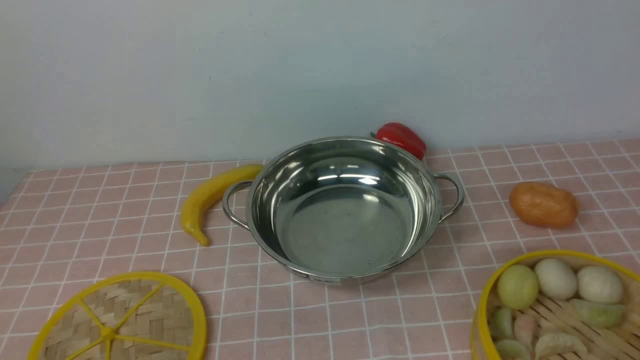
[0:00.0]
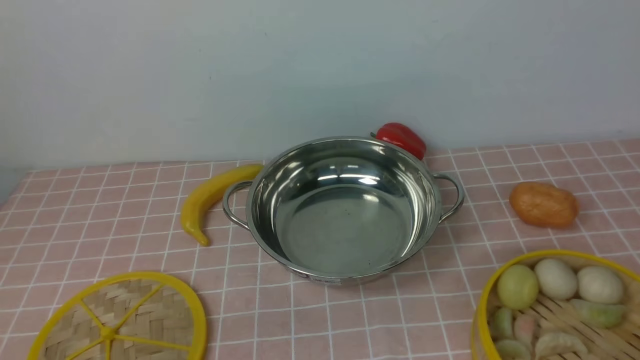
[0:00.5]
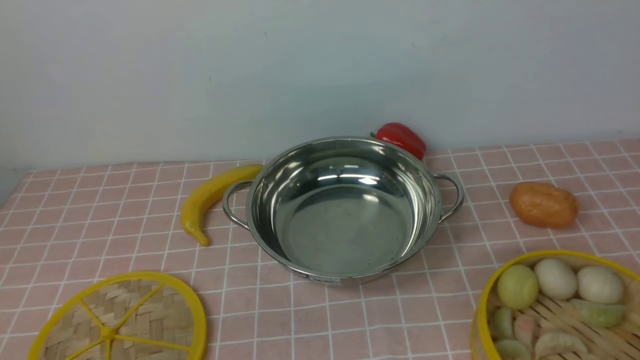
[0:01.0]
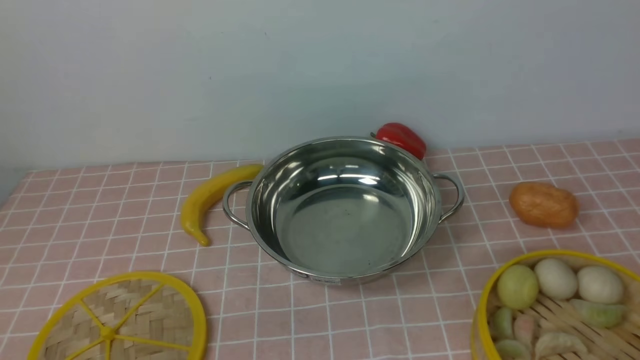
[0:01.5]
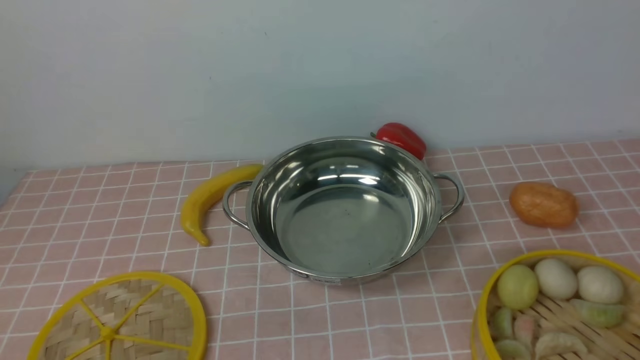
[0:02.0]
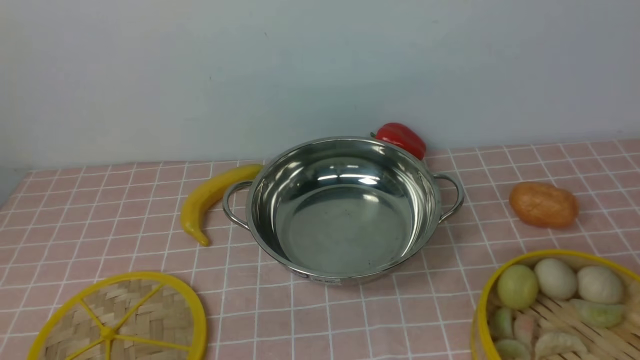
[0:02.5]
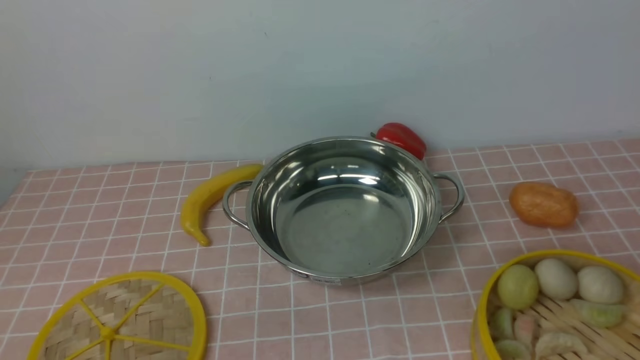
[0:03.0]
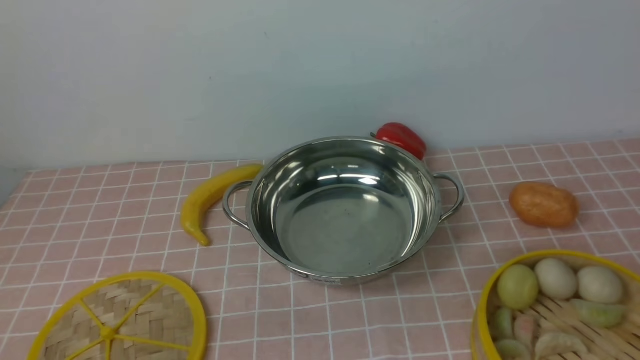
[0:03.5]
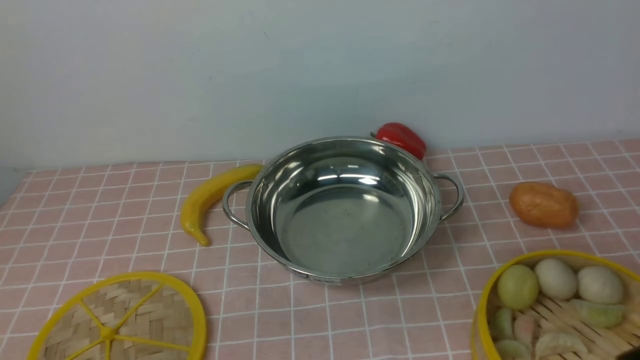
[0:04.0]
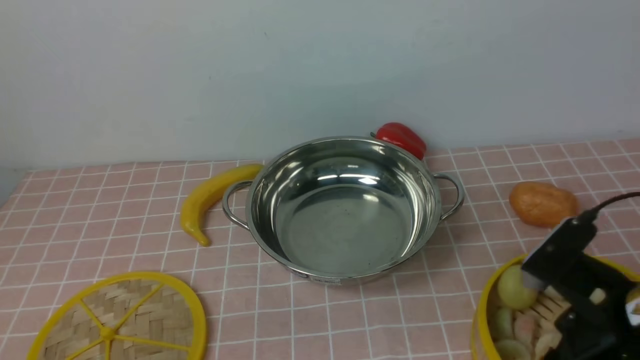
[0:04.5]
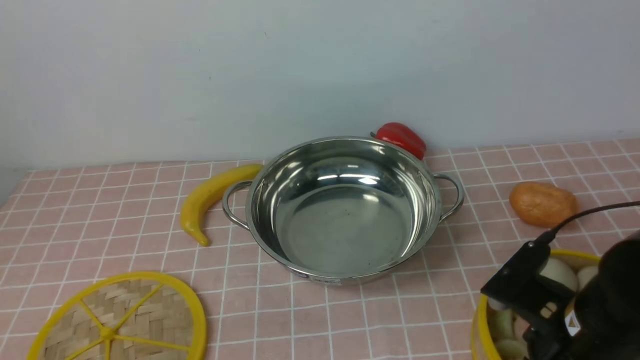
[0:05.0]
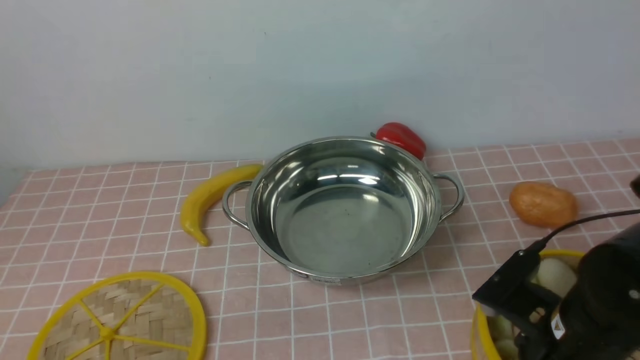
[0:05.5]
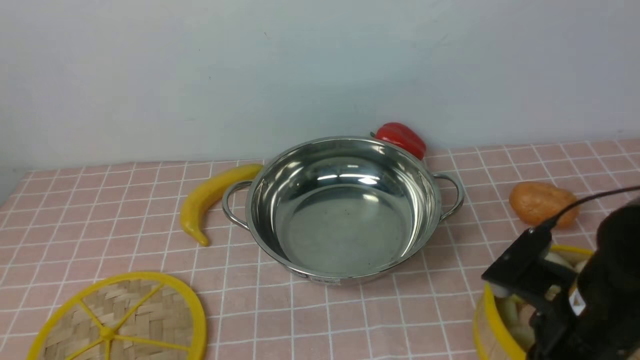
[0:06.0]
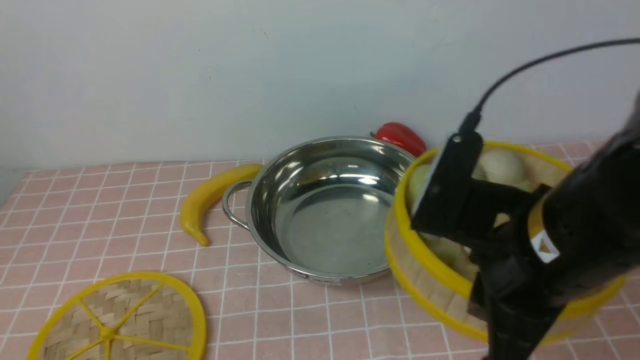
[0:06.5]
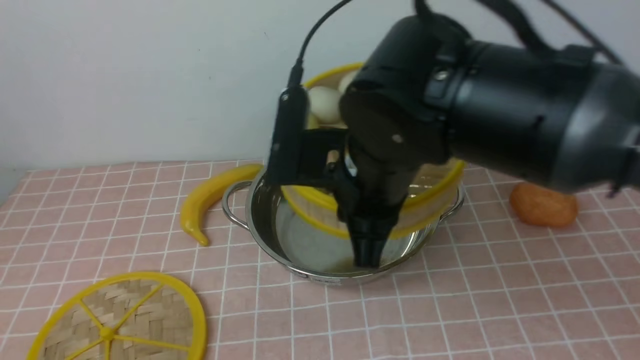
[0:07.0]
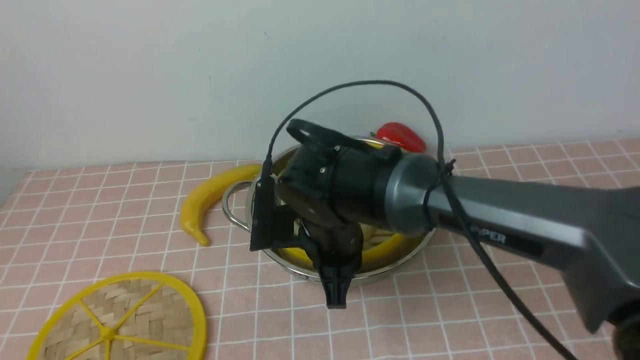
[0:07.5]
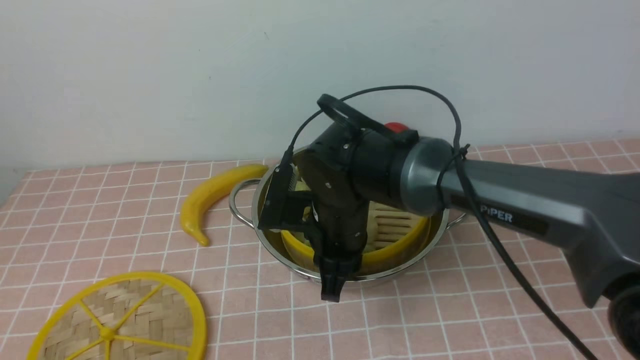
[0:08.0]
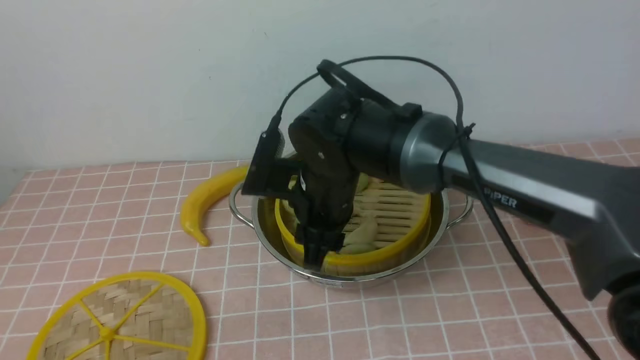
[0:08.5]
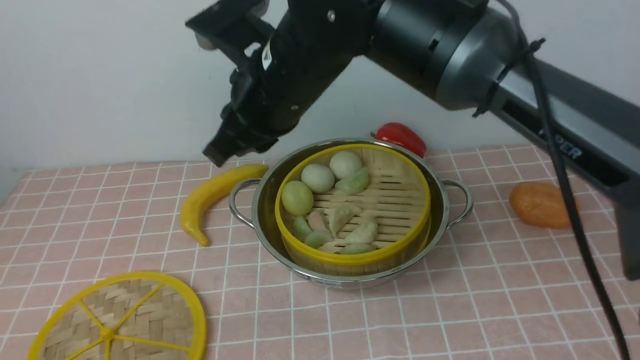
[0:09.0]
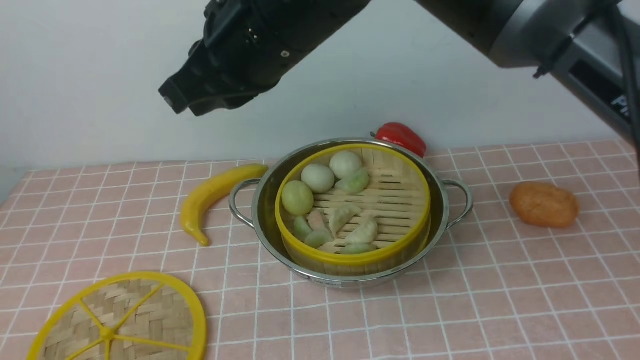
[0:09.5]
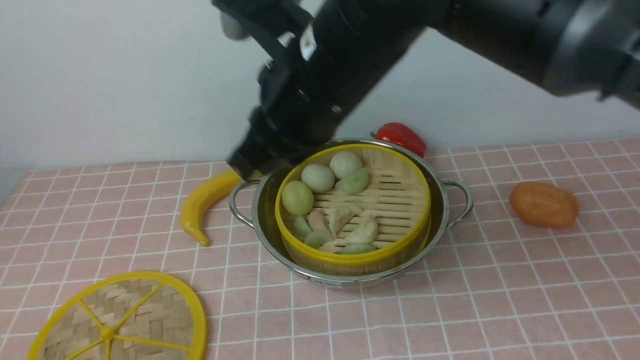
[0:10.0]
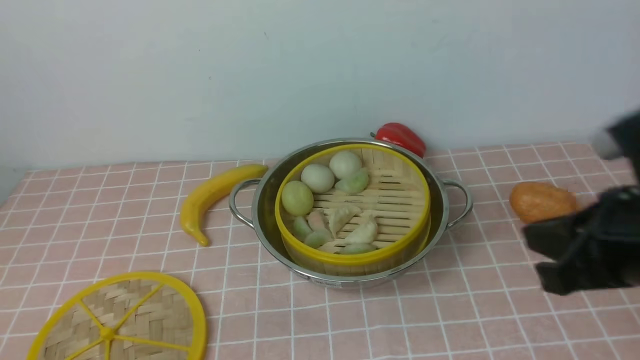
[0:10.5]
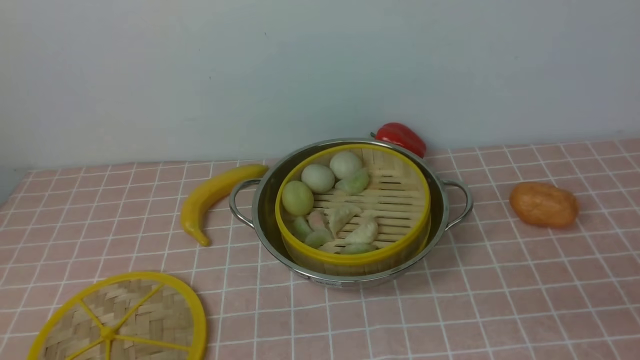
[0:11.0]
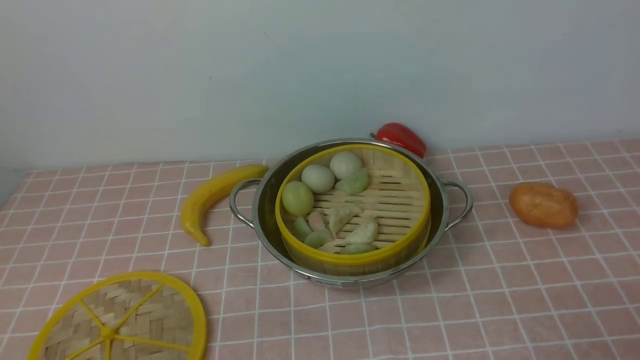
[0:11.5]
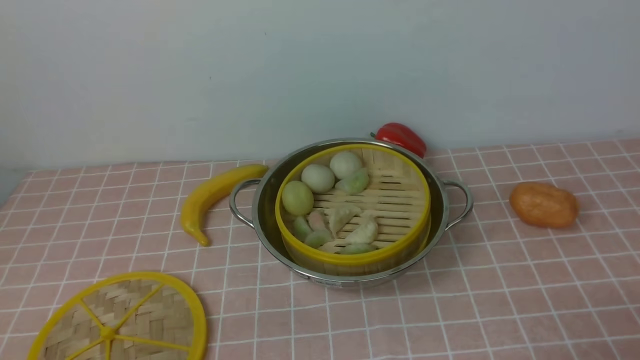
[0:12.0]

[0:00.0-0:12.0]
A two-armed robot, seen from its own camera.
Task of the whole recording: place the steamer in the pot on the pink tablecloth, and put the lid on the steamer.
Step, 0:00.0 to 0:06.0: use the right arm to lift the steamer closest to it.
Step, 0:06.5 to 0:08.5: use the right arm to put the steamer into the iron steamer pot in the middle.
0:00.0 to 0:02.0: Both grippers stay put.
0:04.0 to 0:06.0: The right gripper moves forward, downward and to the left, about 15 cm, and closes its fingers.
0:06.0 to 0:08.0: The right gripper is displaced to the left and forward by about 25 cm, and opens its fingers.
0:08.0 to 0:10.0: The right gripper heads upward, covering some 20 cm, and closes its fingers.
0:10.0 to 0:12.0: The right gripper shifts some 40 cm to the right, backward and downward, and opens its fingers.

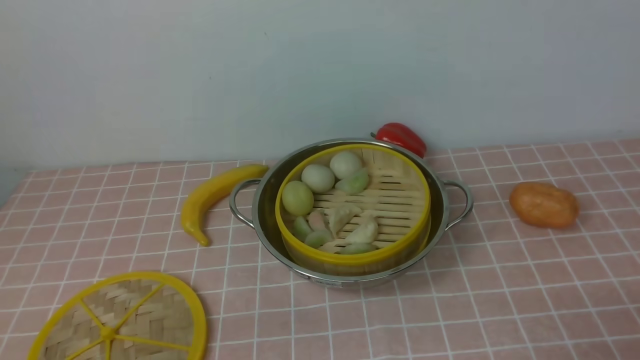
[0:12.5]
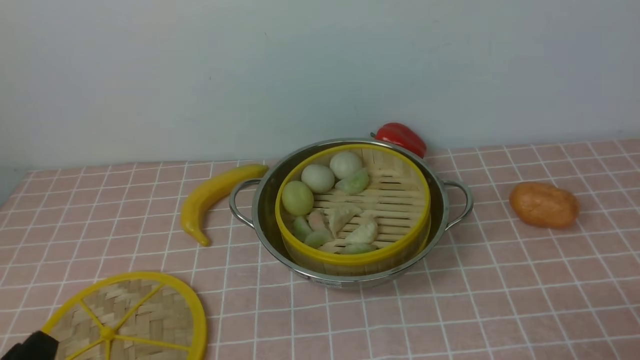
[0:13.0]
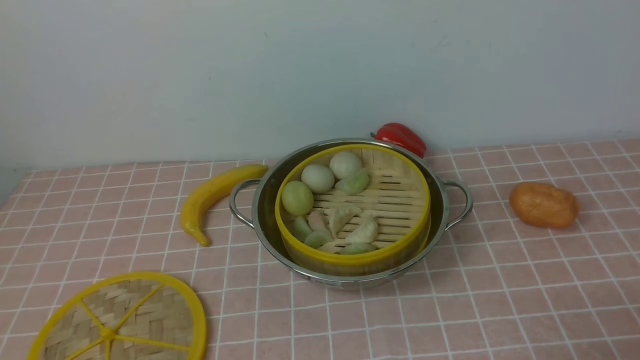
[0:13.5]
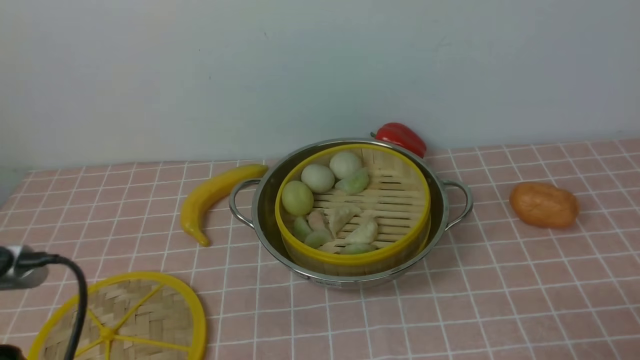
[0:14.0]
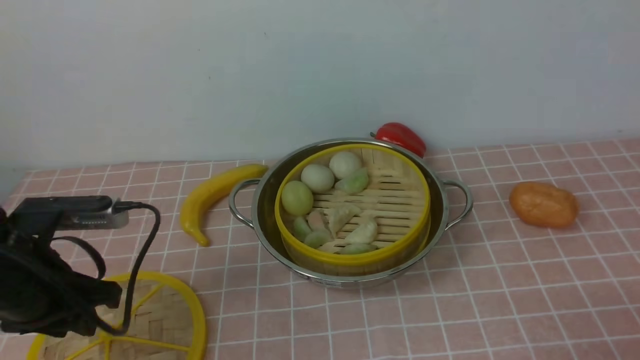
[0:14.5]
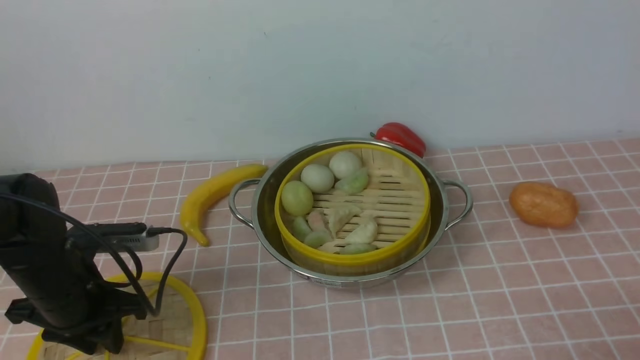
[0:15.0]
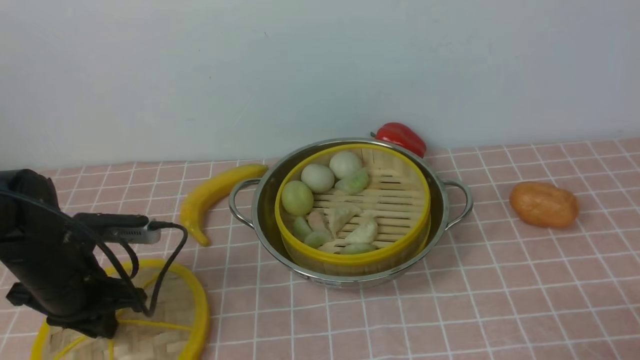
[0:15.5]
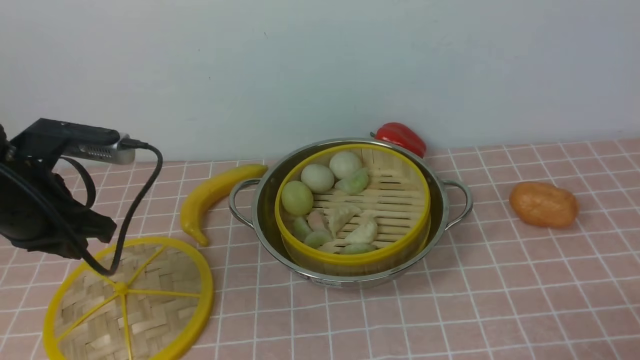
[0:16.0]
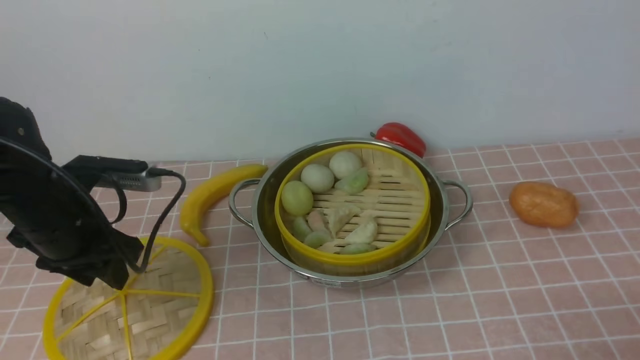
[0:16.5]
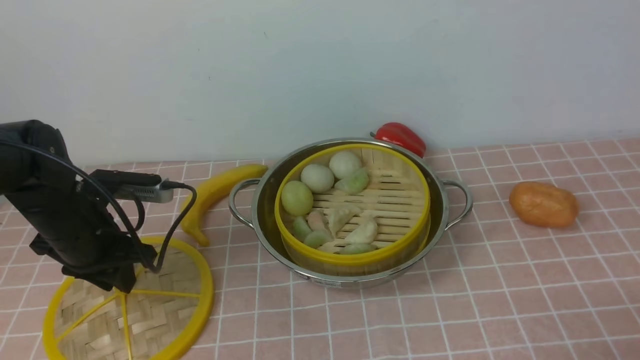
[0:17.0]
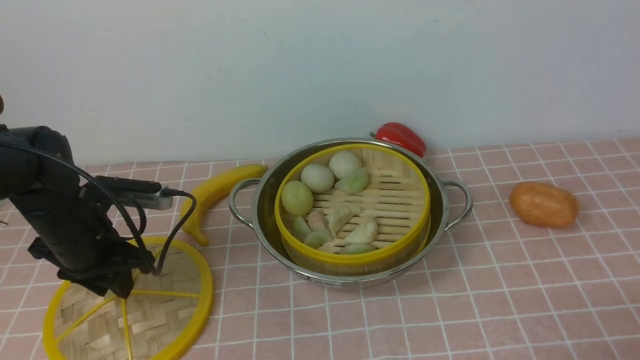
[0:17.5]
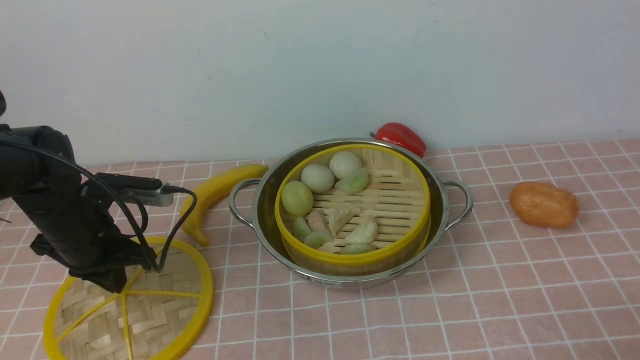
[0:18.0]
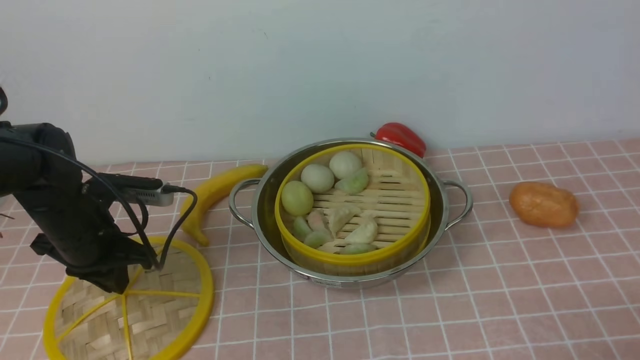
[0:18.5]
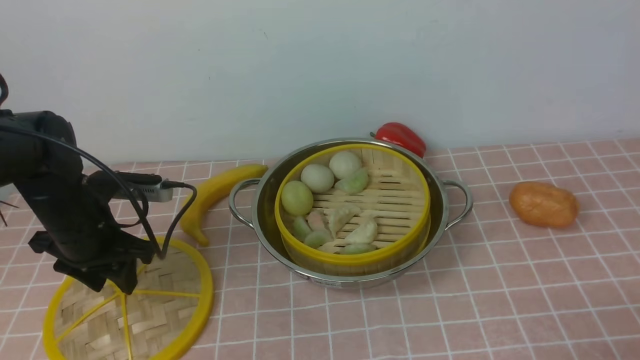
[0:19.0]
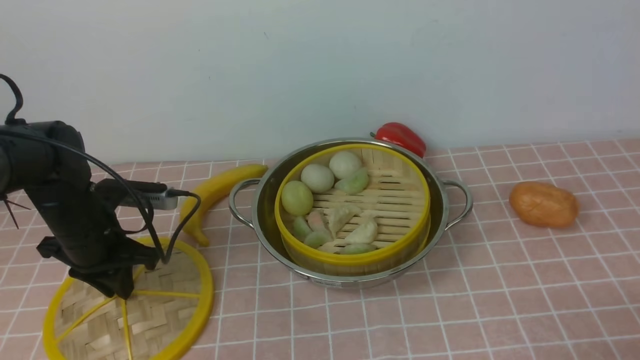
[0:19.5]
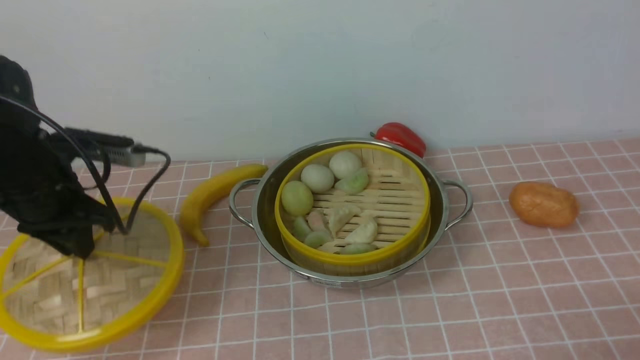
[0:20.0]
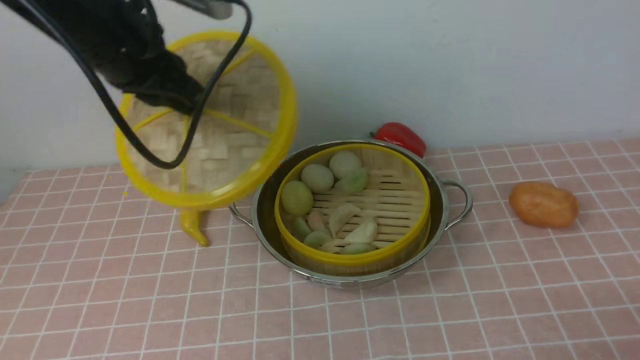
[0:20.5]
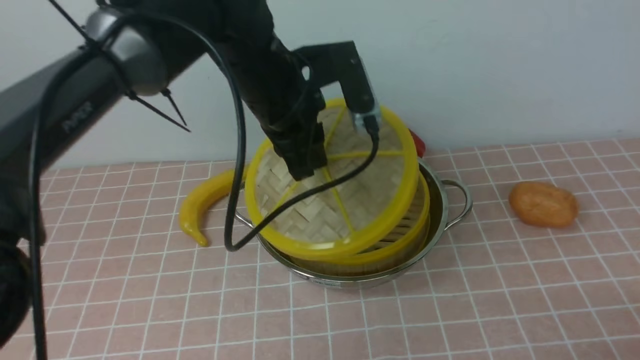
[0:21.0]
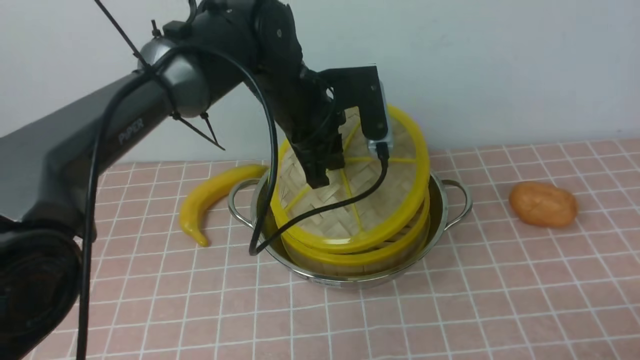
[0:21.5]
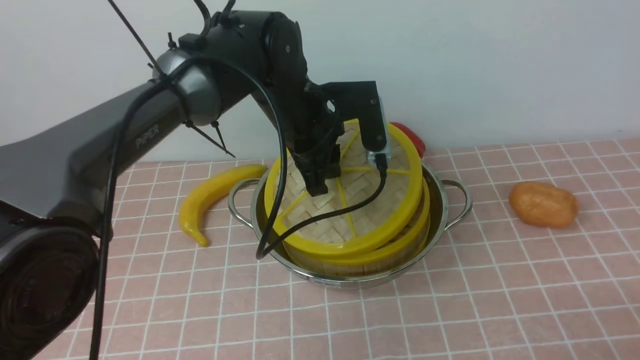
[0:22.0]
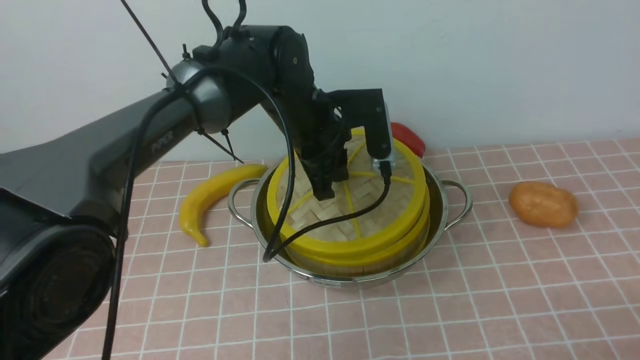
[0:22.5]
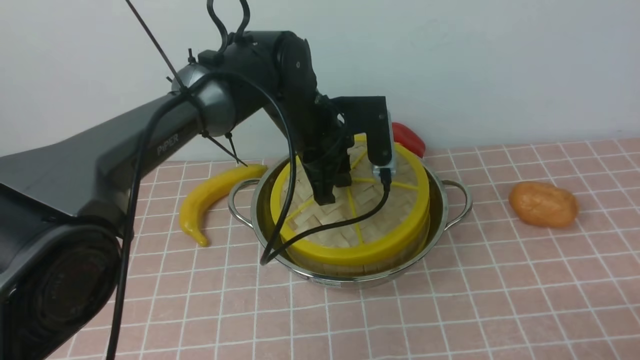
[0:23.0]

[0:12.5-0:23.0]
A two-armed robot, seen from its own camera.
Task of the whole recording: place the steamer in the pot on the pink tablecloth, and put the lid on the steamer.
Step, 0:12.5 to 0:19.5: use the left arm to lift the lid of the steamer.
0:12.5 to 0:14.5: The left gripper shifts some 20 cm forward.
0:14.5 to 0:16.5: The left gripper goes up and down, about 10 cm each way, reversing 2 times, and closes and opens again.
0:16.5 to 0:19.0: The left gripper changes place by approximately 5 cm, and closes, then reopens.
0:19.0 to 0:21.0: The left gripper moves to the right and upward, about 25 cm, and closes its fingers.
0:21.0 to 0:23.0: The left gripper moves downward, some 10 cm.
